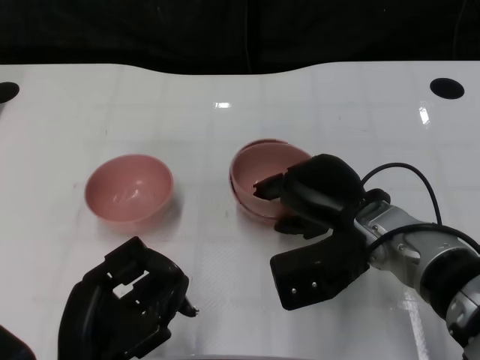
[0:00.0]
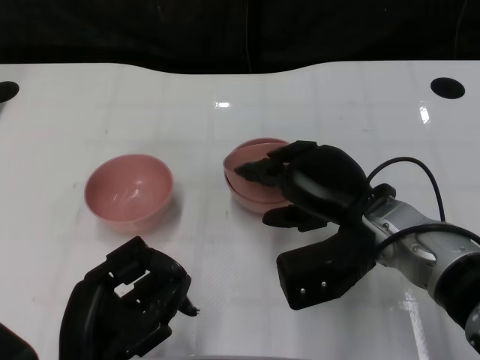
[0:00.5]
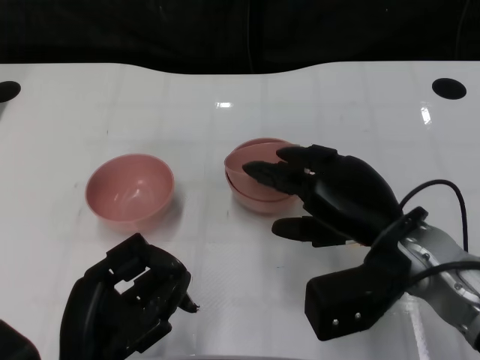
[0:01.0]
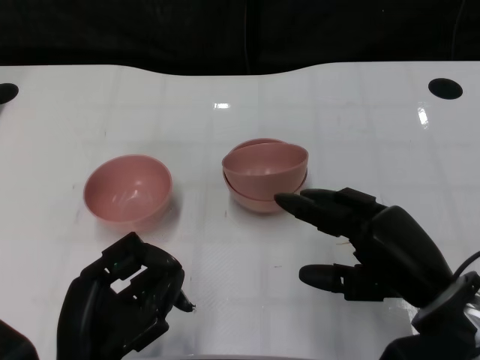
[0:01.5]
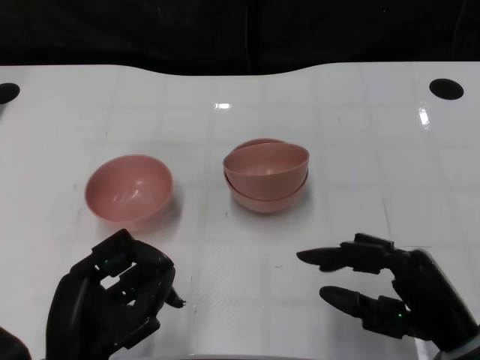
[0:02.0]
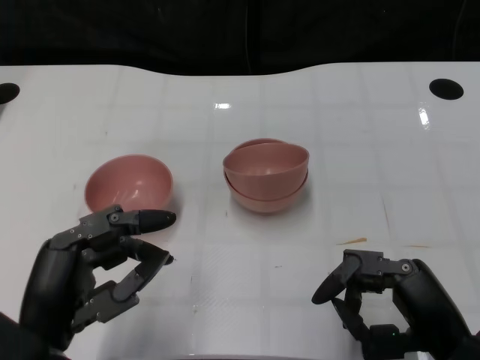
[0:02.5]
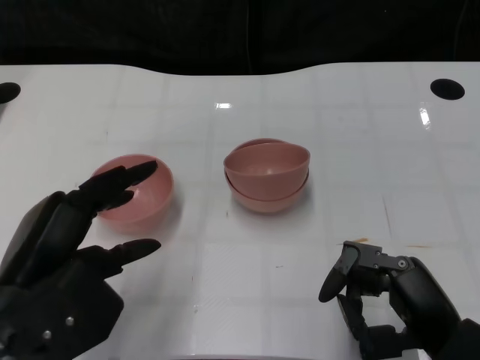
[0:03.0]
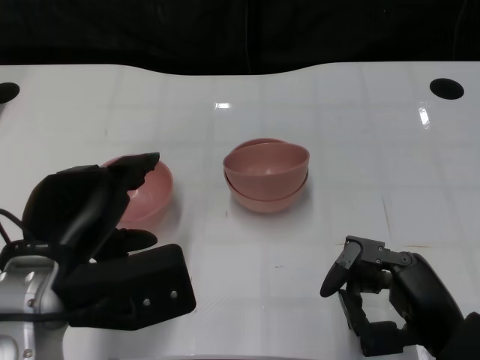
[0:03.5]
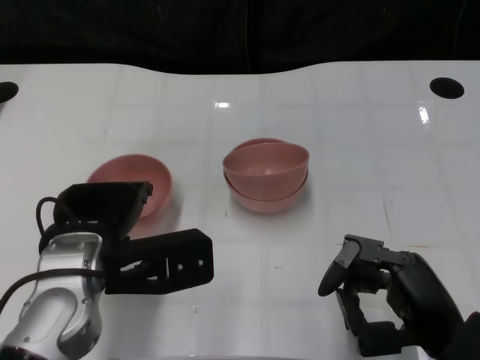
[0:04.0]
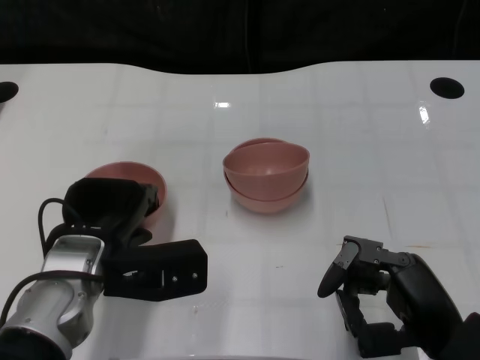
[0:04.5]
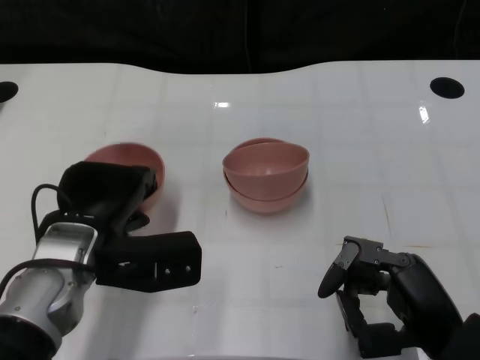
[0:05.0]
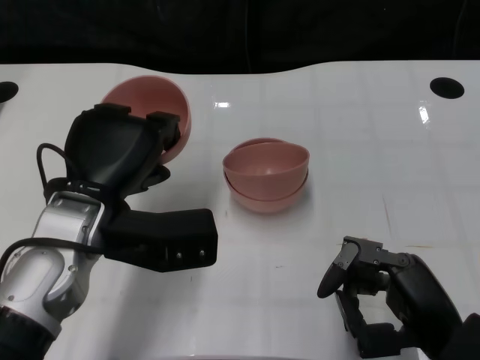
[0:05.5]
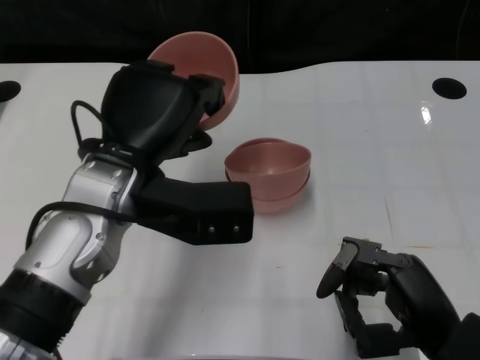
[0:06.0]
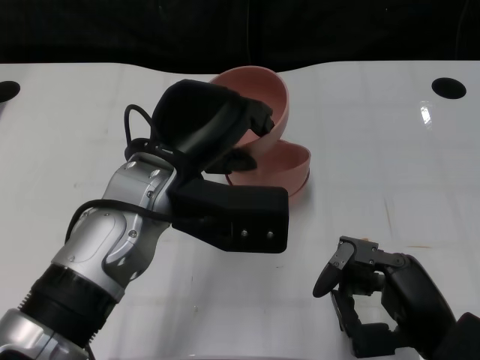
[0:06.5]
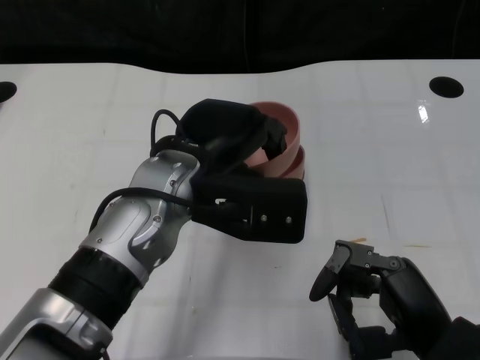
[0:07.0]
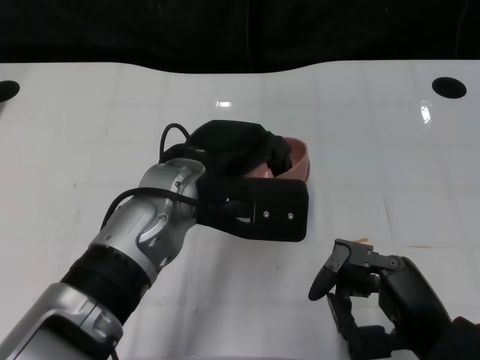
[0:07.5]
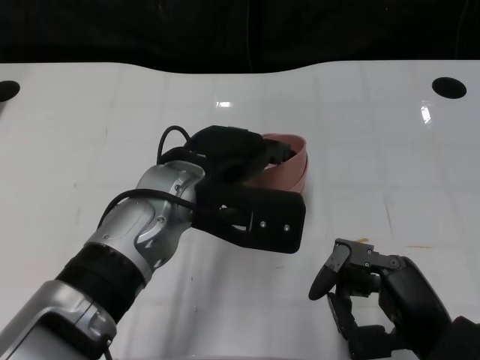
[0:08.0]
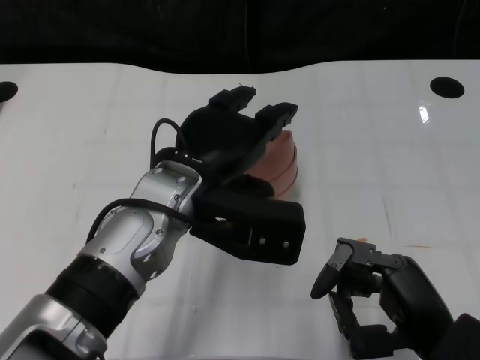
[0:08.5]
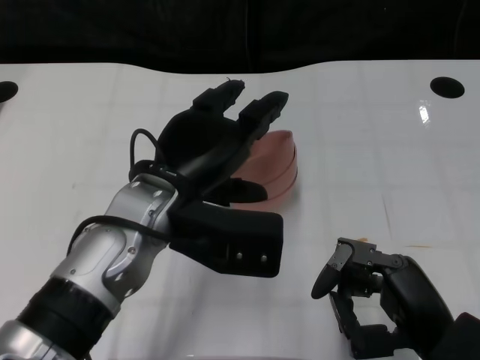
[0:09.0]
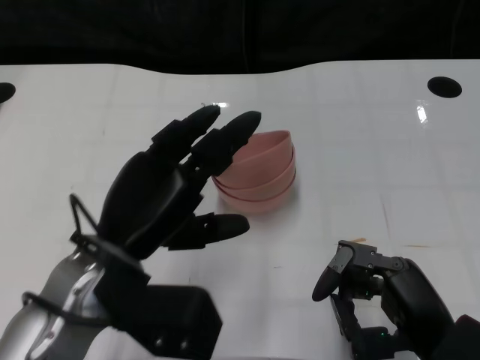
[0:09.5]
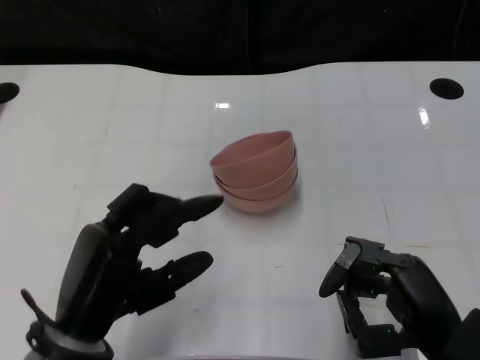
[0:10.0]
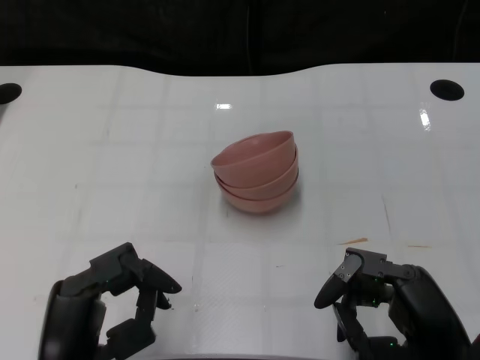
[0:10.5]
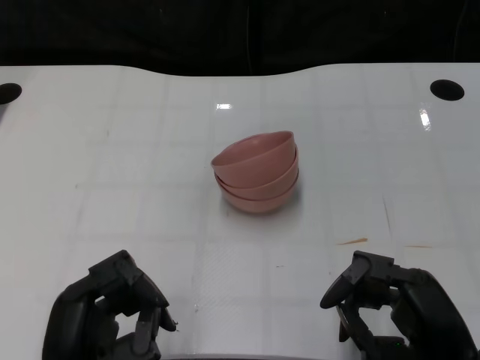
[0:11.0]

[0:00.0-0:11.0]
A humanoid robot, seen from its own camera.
Task of the whole recording: Pick up the bowl on one side of the table and place it on top of the middle bowl, then pick up the bowl on the other side of the table and place it on top of the middle bowls.
Step, 0:01.5 to 0:04.5: Grasp the bowl on the left with the left gripper.
Step, 0:05.0 to 0:09.0: Place the bowl on the left onto the bowl in the middle with left gripper.
0:00.0 to 0:02.0: The right hand shifts some 15 cm backward and to the right.
0:02.0 to 0:03.5: The left hand shifts roughly 10 cm upward and forward.
0:03.5 to 0:05.5: The left hand is displaced forward by roughly 5 cm.
0:05.5 to 0:07.5: The left hand is displaced to the right by roughly 10 cm.
0:09.0 to 0:11.0: The left hand is displaced backward, downward and to the left by approximately 20 cm.

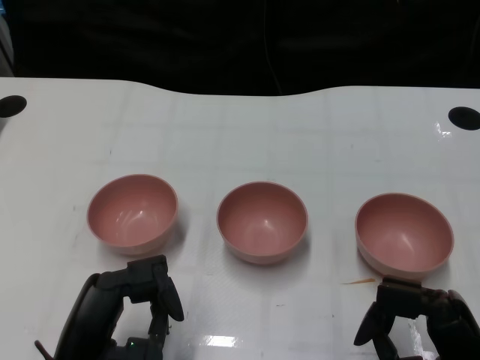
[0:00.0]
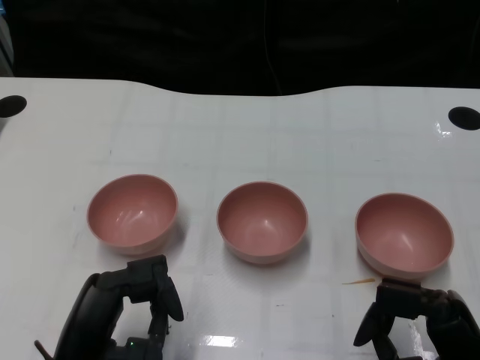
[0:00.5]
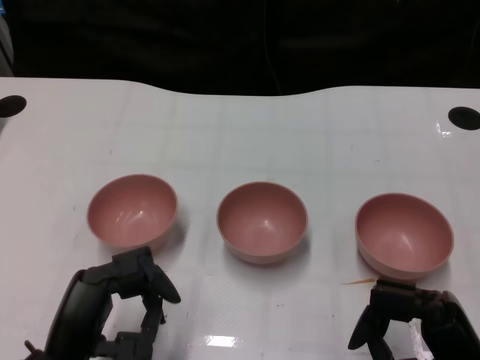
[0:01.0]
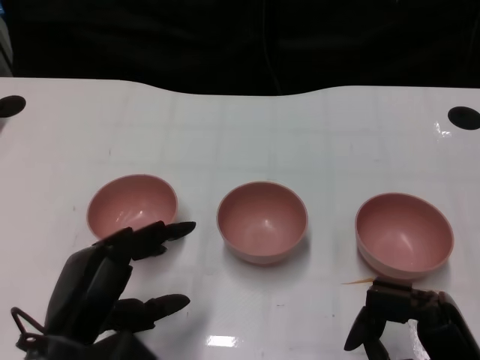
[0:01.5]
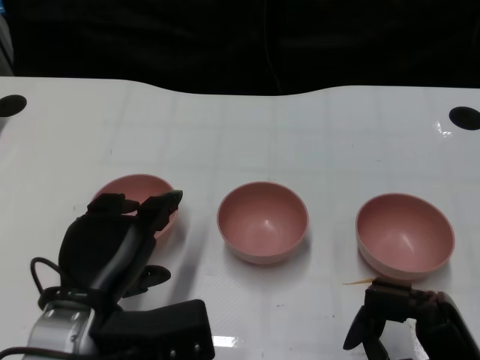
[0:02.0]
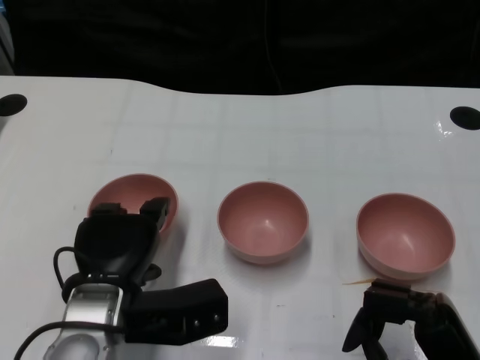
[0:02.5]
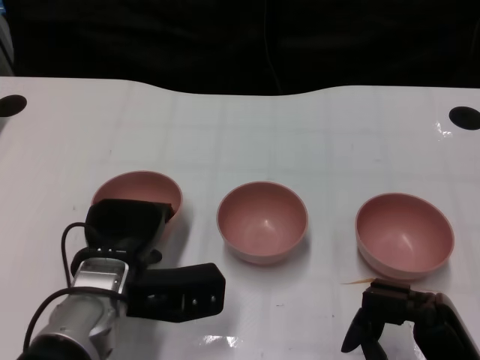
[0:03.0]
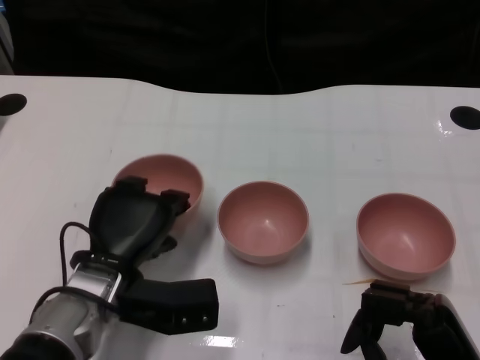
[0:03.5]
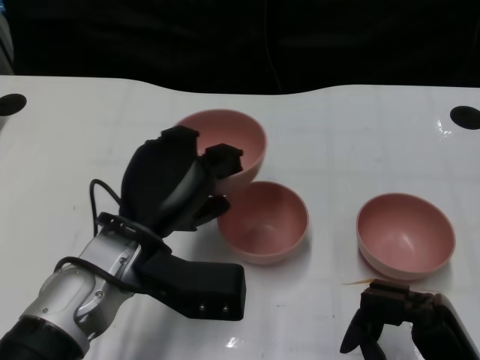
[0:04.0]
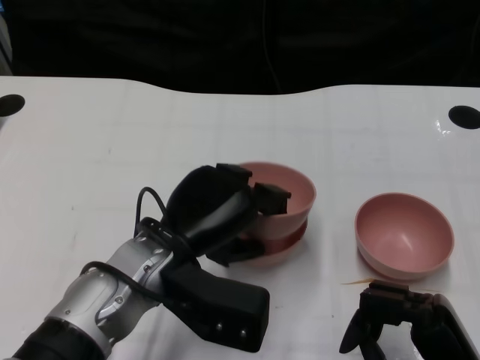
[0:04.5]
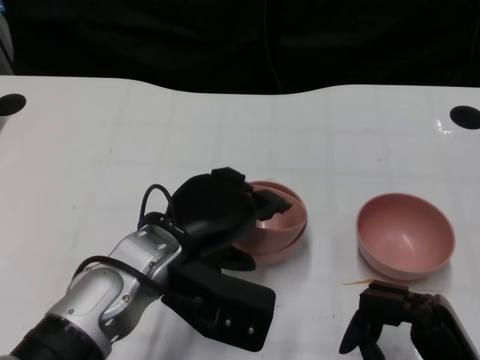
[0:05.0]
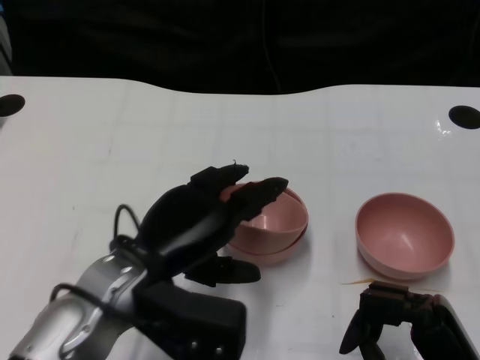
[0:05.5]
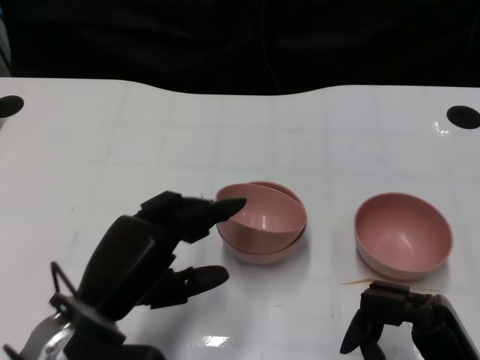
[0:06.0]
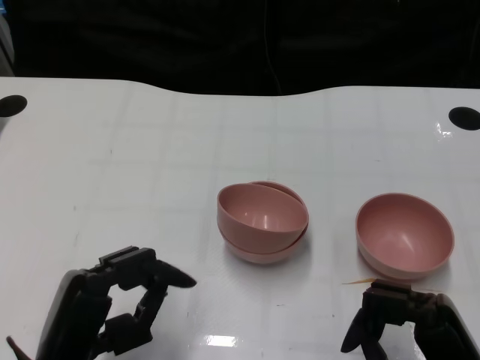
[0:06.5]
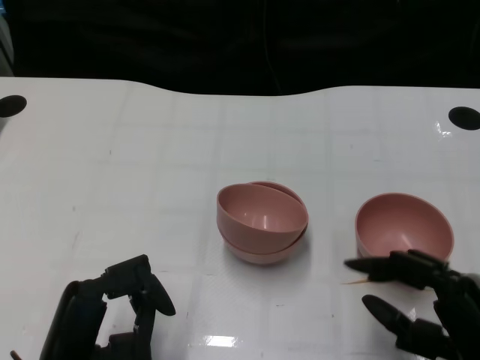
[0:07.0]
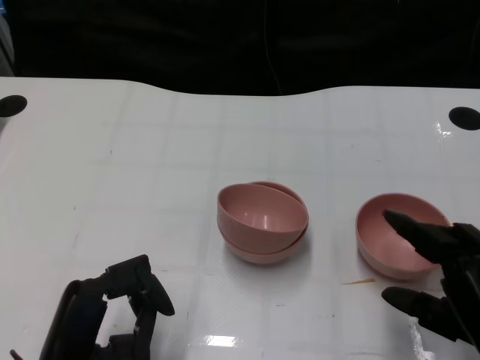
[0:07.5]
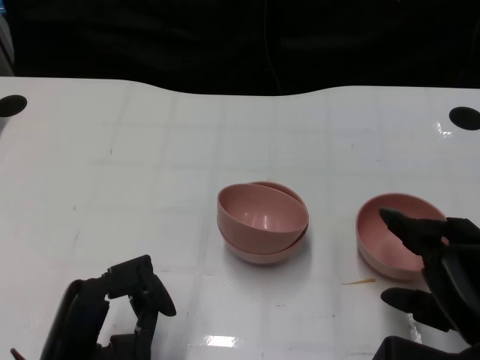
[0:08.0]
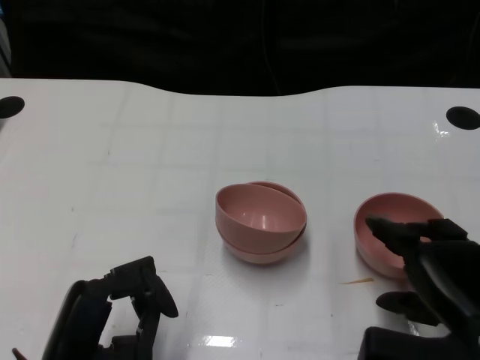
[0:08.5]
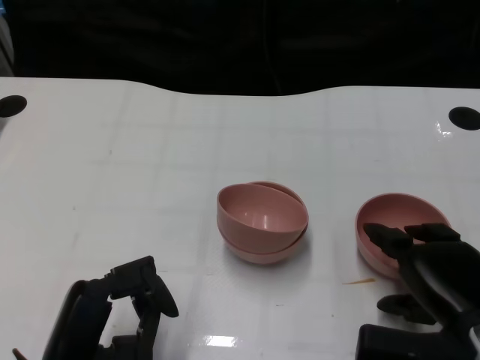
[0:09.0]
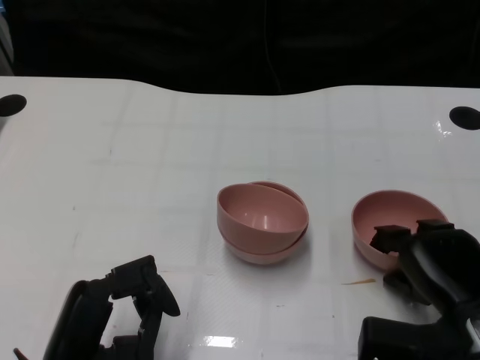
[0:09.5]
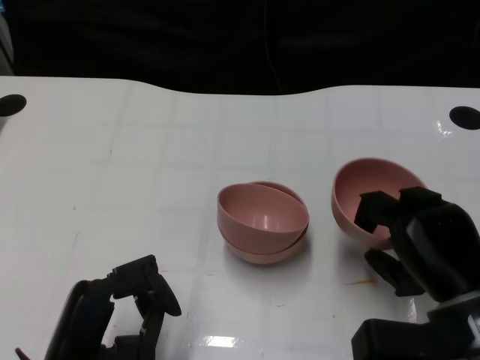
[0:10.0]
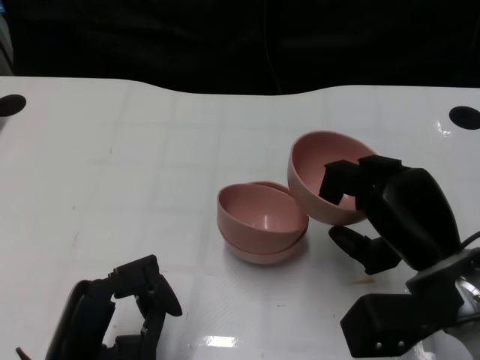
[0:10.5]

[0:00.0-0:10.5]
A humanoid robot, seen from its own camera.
Task of the whole recording: Pick up the bowl on one side of the table and place it on top of the middle bowl, then pick up the bowl on the other side of the table and place it on top of the middle bowls.
Step, 0:01.0 to 0:03.0: Grasp the bowl on the left with the left gripper.
Step, 0:03.5 to 0:05.5: Place the bowl on the left onto the bowl in the middle with left gripper.
Step, 0:06.0 to 0:09.5: Grasp the bowl on the right with the right gripper.
0:02.0 to 0:04.0: The left hand goes some 5 cm forward.
0:04.0 to 0:06.5: The left hand moves backward, to the left and downward, some 15 cm.
0:06.5 to 0:08.5: The right hand changes place by roughly 5 cm.
0:08.5 to 0:10.5: The right hand goes about 5 cm forward.

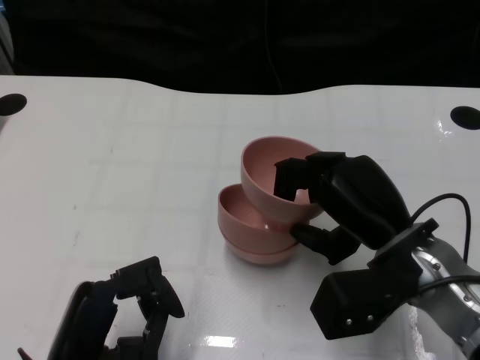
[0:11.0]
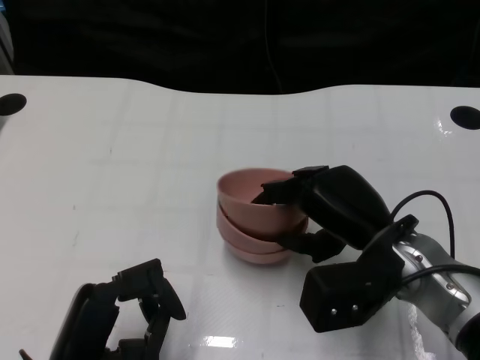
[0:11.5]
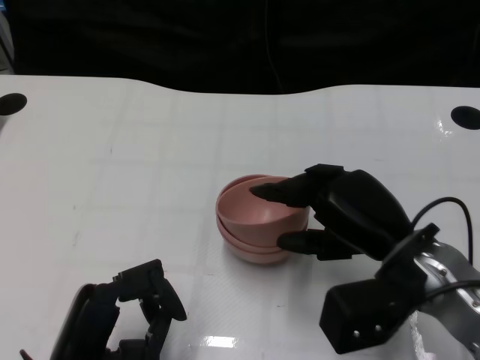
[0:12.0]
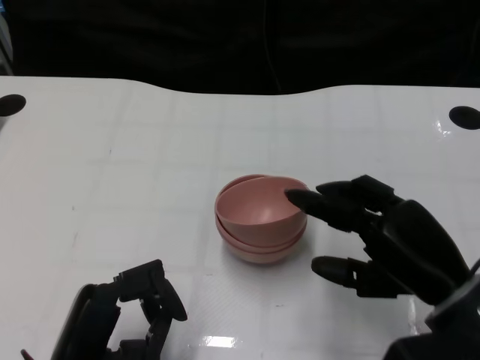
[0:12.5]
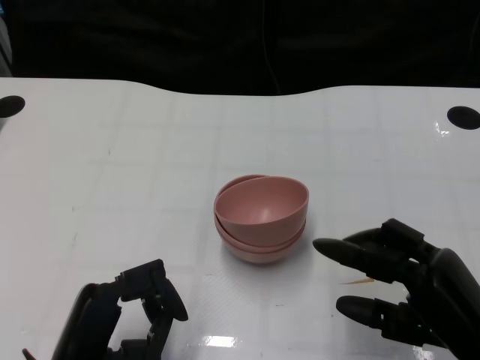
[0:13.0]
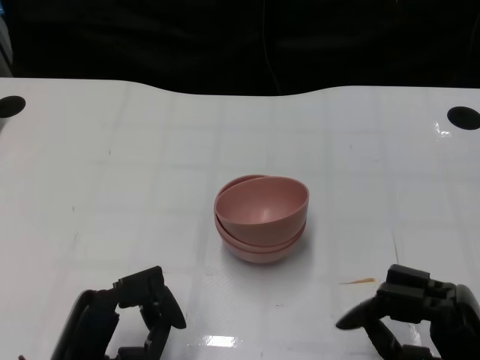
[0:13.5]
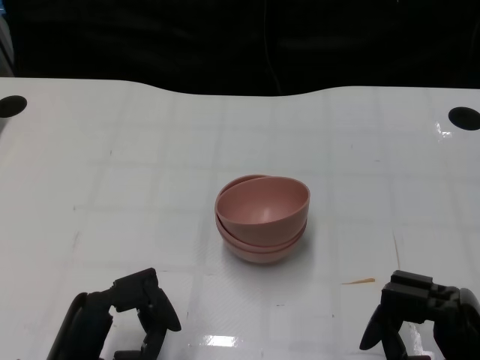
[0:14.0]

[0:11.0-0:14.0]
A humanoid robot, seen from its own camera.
Task of the whole recording: Pick up the bowl on one side of the table and place it on top of the middle bowl, then pick up the bowl on the other side of the table and place it on top of the middle bowls.
0:11.0 to 0:12.5: The right hand shifts by approximately 5 cm.
0:12.5 to 0:14.0: The right hand travels backward and downward by about 10 cm.
